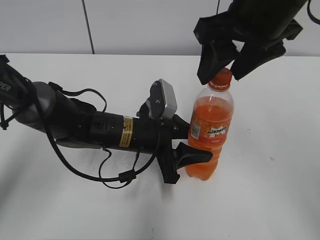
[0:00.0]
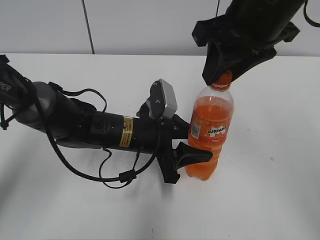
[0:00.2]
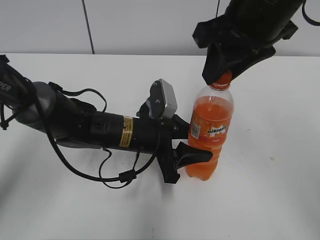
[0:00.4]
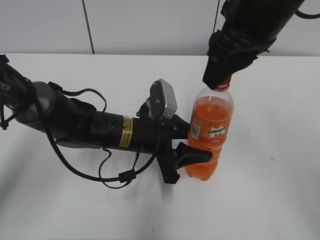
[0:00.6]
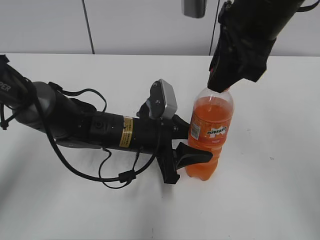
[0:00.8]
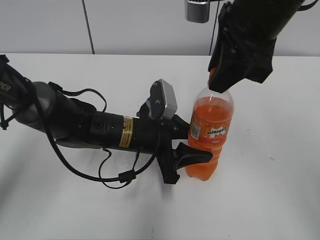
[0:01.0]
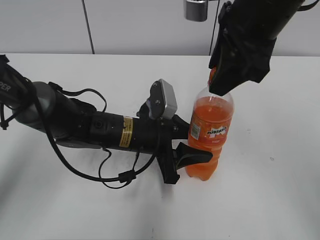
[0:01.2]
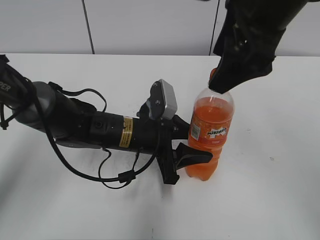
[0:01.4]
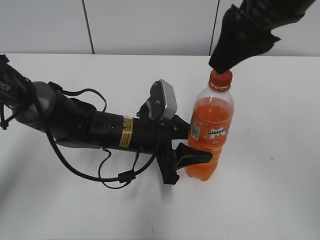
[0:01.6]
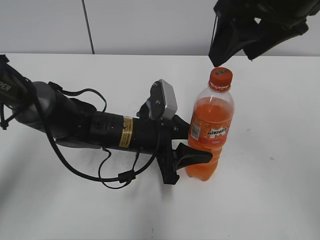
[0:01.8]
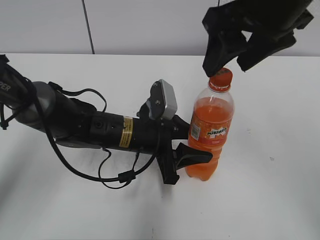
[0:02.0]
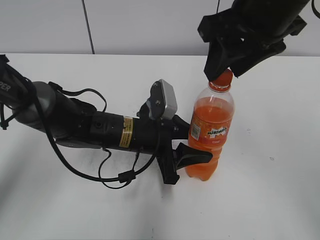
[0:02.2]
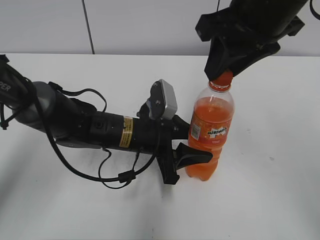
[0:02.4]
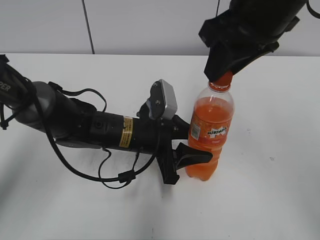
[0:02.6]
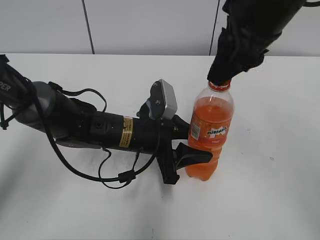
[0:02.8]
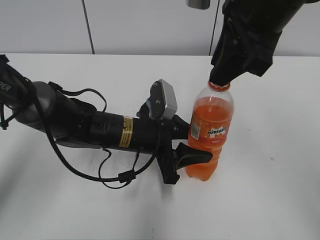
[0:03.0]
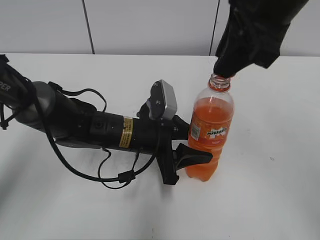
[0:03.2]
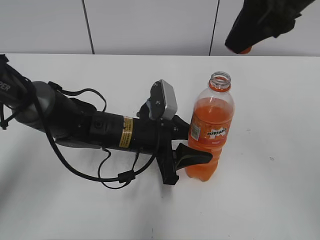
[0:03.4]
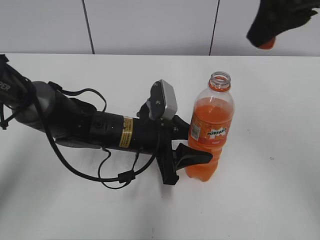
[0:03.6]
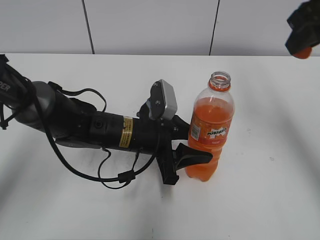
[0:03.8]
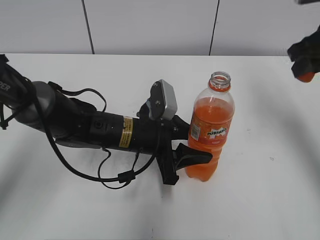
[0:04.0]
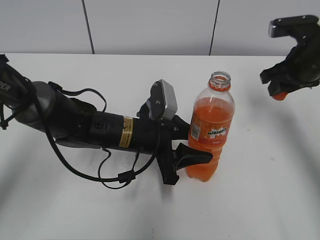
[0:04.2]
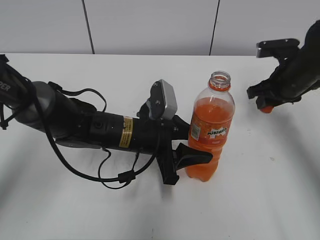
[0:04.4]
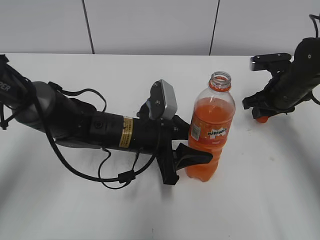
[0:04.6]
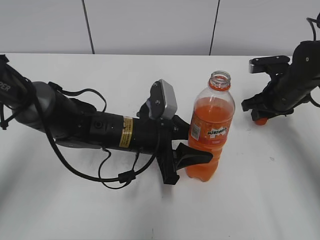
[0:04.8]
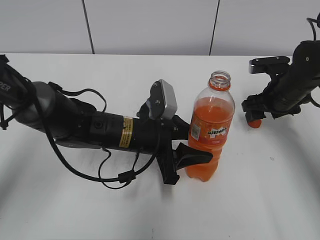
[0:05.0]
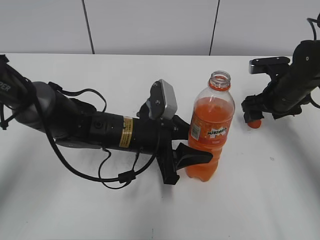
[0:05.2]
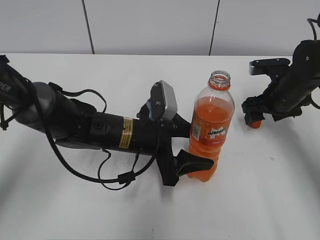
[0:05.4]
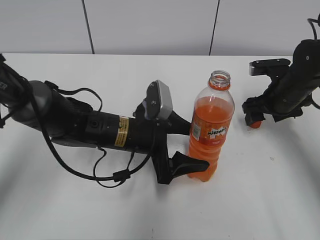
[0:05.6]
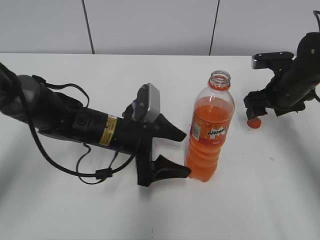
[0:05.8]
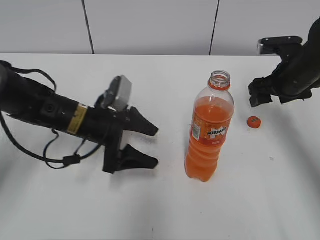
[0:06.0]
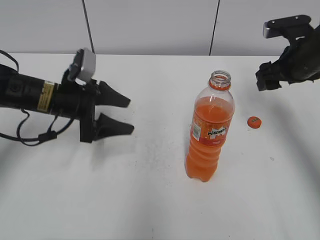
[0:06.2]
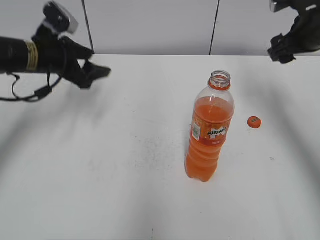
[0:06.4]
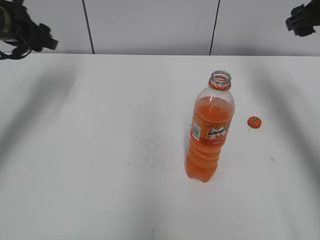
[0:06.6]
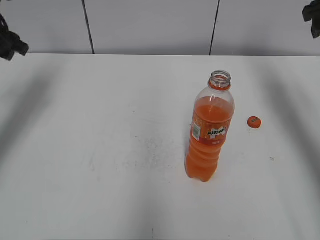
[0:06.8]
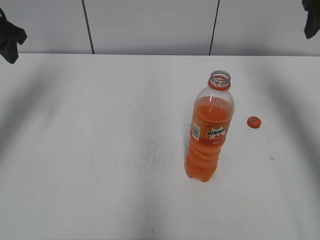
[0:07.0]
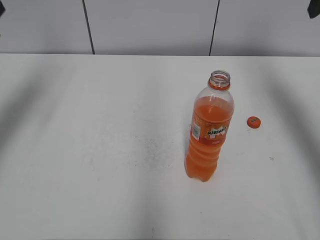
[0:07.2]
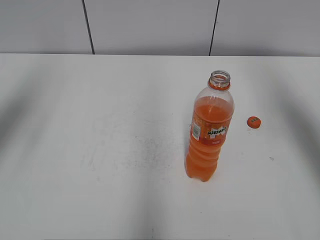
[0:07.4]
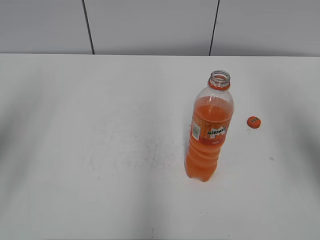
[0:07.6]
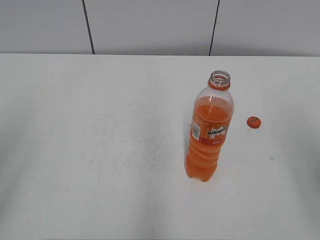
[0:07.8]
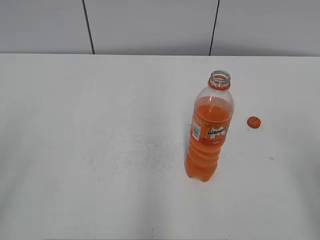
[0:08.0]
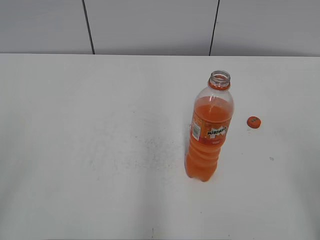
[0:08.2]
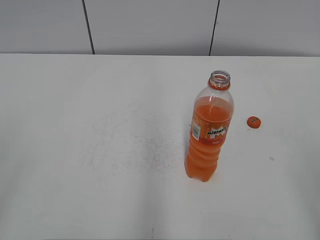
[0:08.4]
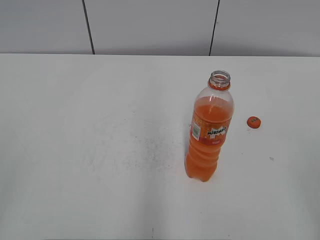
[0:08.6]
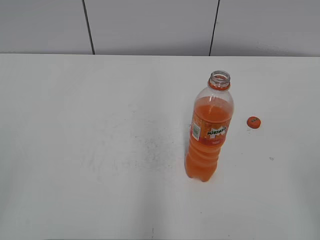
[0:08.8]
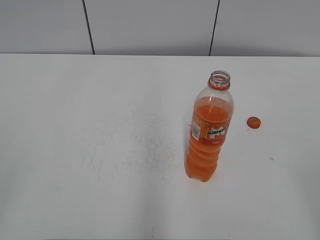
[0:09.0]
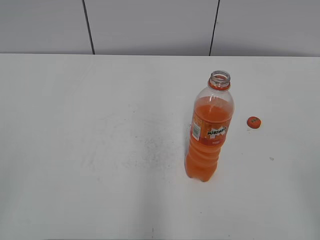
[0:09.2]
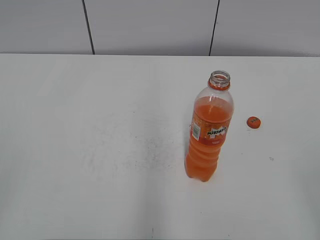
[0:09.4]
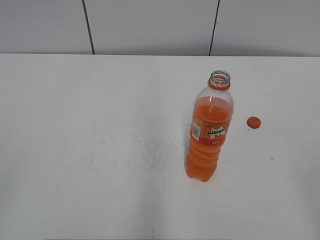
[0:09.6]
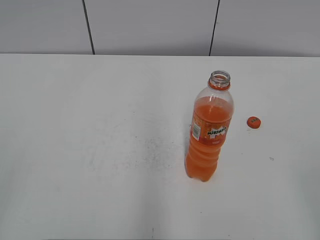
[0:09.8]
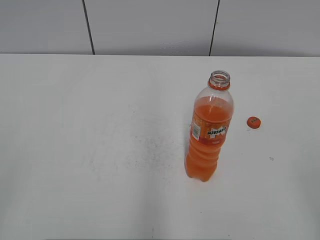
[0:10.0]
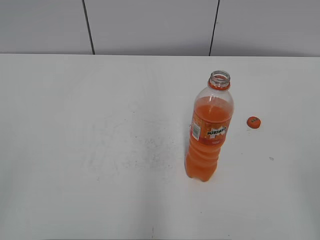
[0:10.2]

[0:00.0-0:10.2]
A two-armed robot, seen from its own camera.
Step, 0:03.2 to 0:05.2: Place the bottle cap on the right.
0:00.0 to 0:01.4: The right gripper closes, then opens again.
0:01.4 to 0:03.0: The right gripper closes.
0:03.0 to 0:04.4: The right gripper goes some 25 cm downward, to the right and forward.
0:04.4 to 0:05.8: The right gripper opens up. The left gripper opens up.
0:05.8 to 0:07.2: The right gripper shifts approximately 25 cm upward; the left gripper heads upward and to the left, covering roughly 35 cm, and closes.
0:07.2 to 0:08.8: Both grippers travel together backward, approximately 35 cm.

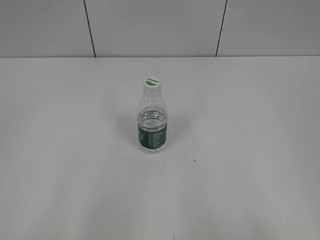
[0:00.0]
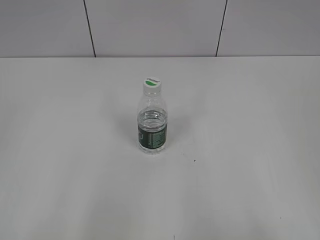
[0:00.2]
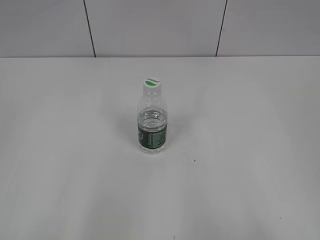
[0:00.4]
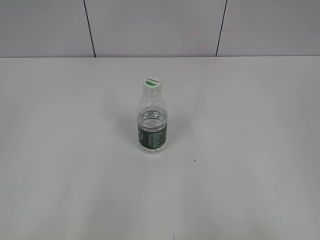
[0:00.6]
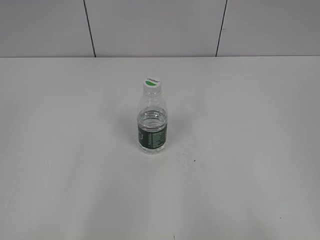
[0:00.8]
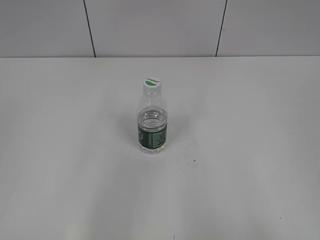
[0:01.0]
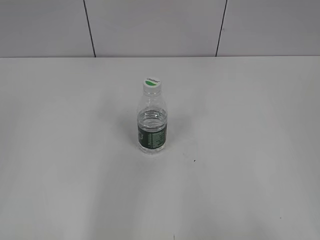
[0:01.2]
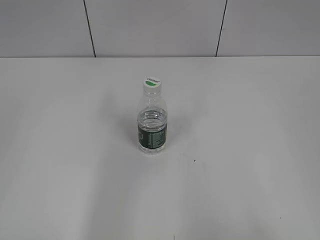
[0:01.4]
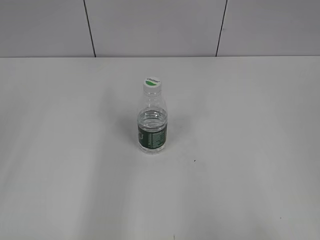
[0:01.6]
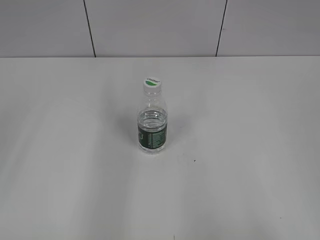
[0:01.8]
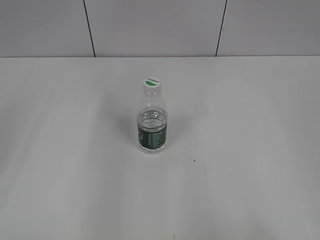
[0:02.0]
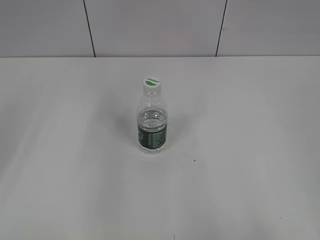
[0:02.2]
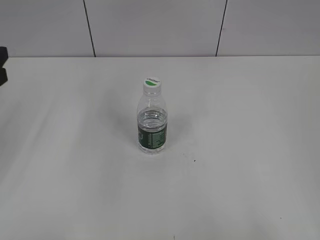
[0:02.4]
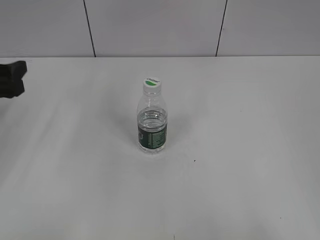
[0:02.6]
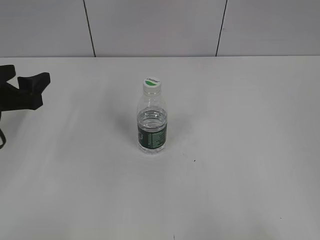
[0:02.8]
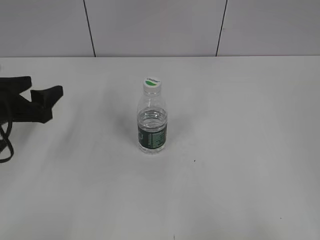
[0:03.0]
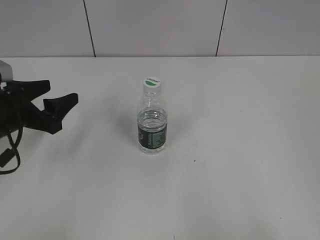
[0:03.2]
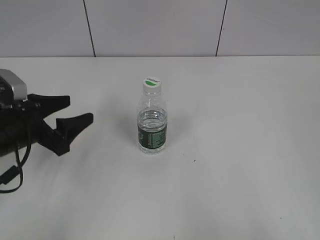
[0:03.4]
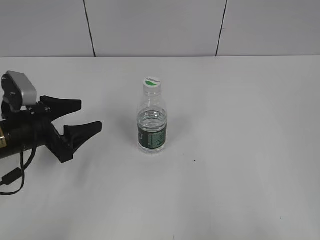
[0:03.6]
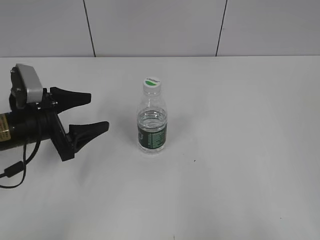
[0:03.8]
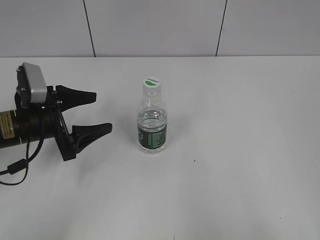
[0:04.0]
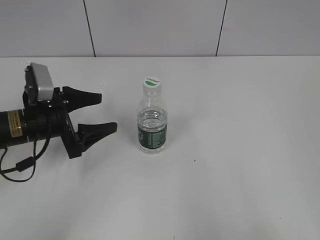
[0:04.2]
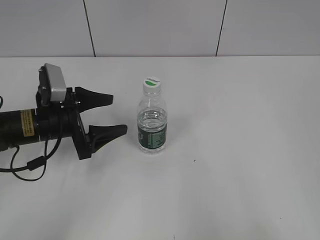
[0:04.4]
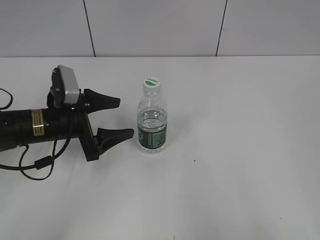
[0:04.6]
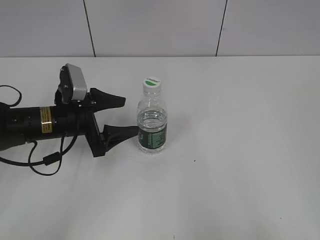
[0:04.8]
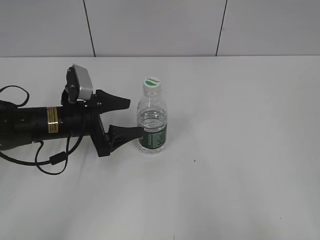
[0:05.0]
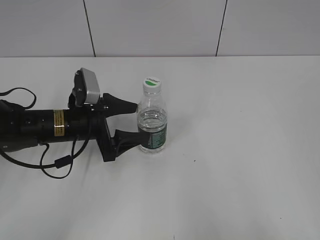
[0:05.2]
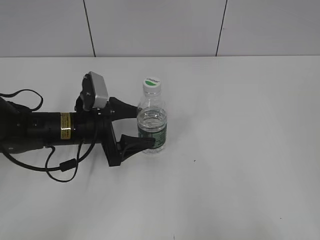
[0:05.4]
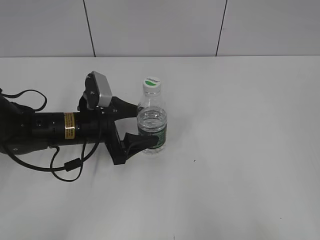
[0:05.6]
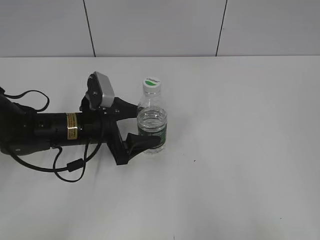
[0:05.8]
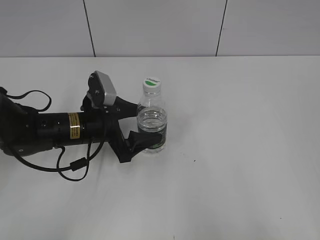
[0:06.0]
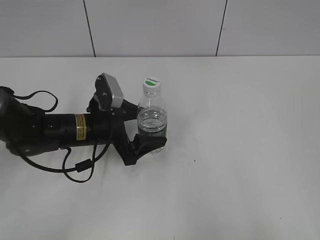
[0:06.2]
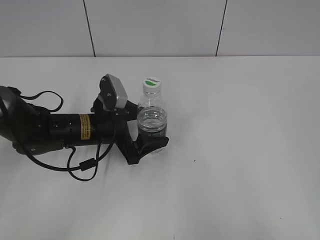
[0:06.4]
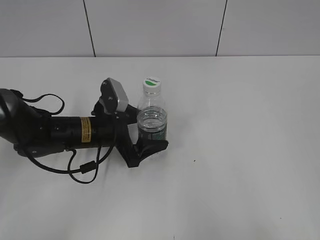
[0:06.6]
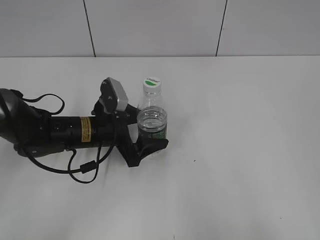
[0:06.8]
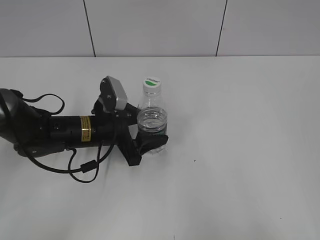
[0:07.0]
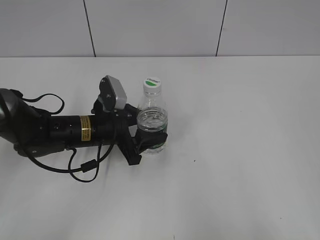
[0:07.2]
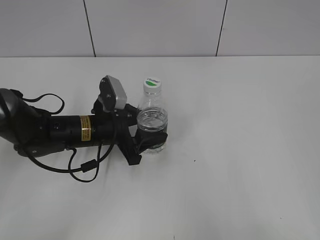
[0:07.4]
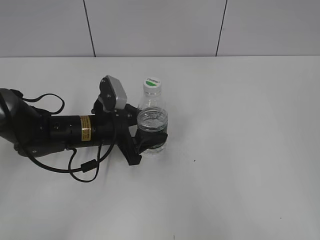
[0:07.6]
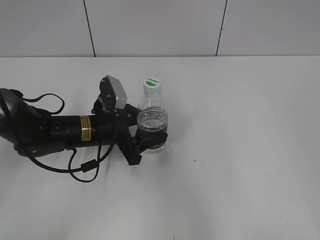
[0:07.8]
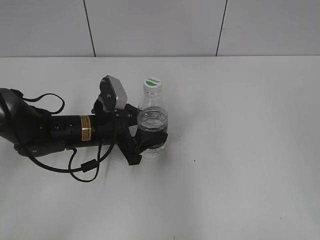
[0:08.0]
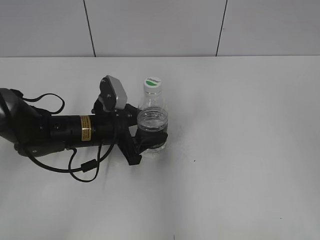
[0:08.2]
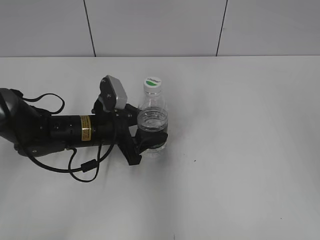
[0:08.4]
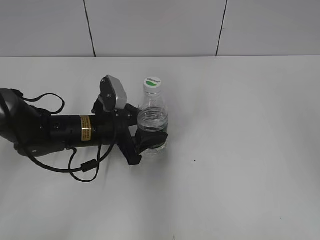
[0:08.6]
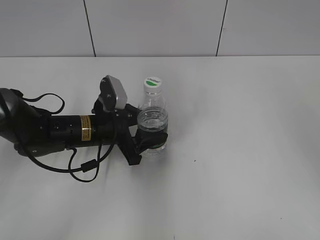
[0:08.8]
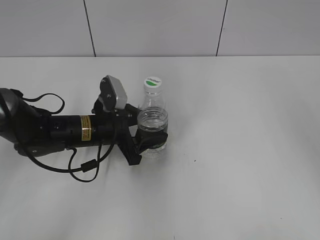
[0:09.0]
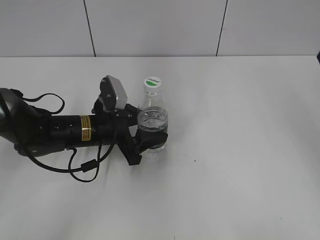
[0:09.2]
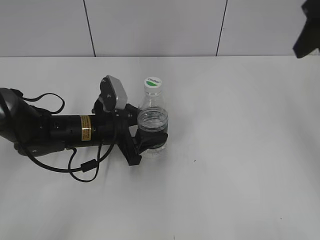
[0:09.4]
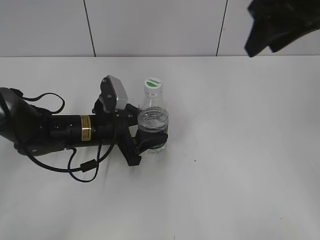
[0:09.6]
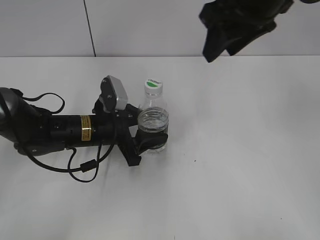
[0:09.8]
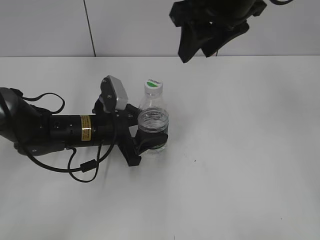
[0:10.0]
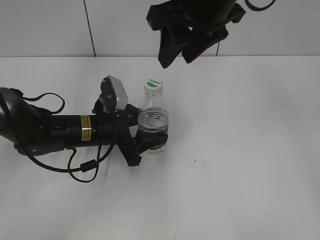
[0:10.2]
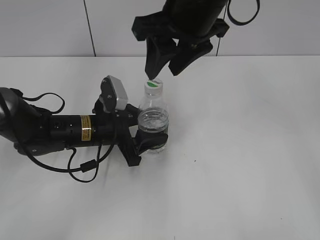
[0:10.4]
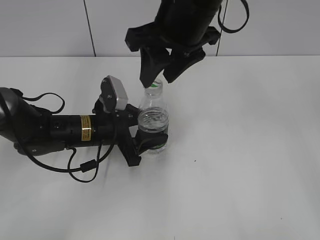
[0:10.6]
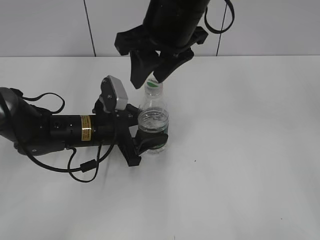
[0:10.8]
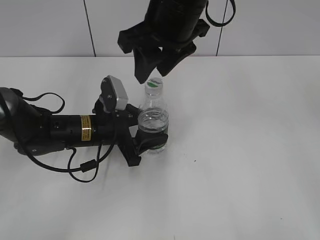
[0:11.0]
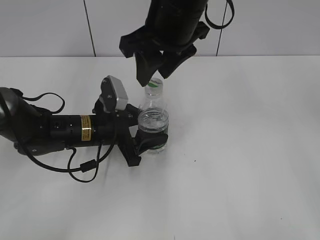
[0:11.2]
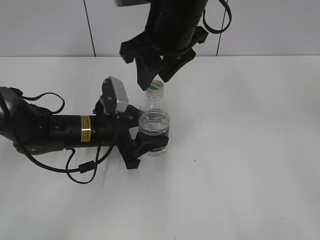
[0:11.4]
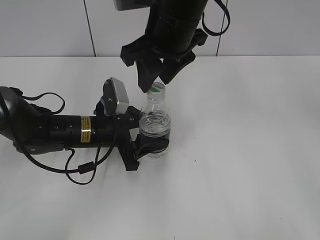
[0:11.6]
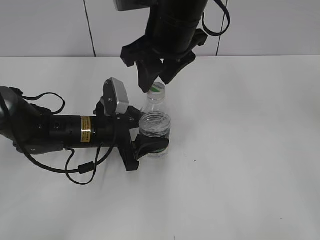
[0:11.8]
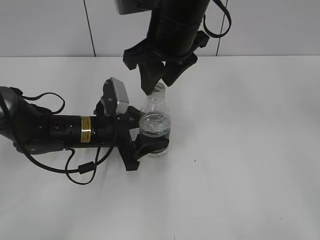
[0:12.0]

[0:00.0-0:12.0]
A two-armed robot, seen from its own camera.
Step, 0:00.0 to 0:07.6: Grasp the bottle and move it to the center of the table with the left gripper.
0:01.6 to 0:03.0: The left gripper travels forward and downward by about 25 cm.
0:03.0 to 0:04.4: The left gripper moves to the right, approximately 5 cm.
0:04.4 to 0:06.0: The left gripper shifts some 5 cm to the right.
0:06.0 to 0:07.6: The left gripper closes its fingers.
0:07.6 to 0:09.0: The right gripper goes approximately 25 cm forward, and closes.
0:09.0 to 0:10.4: The right gripper moves to the left, roughly 25 cm.
0:10.4 to 0:12.0: The grippers stay close to where they were, moving slightly.
